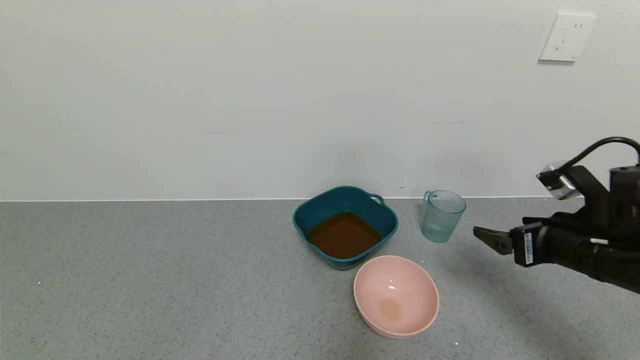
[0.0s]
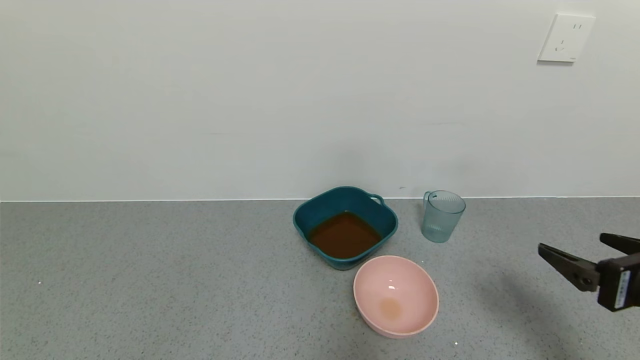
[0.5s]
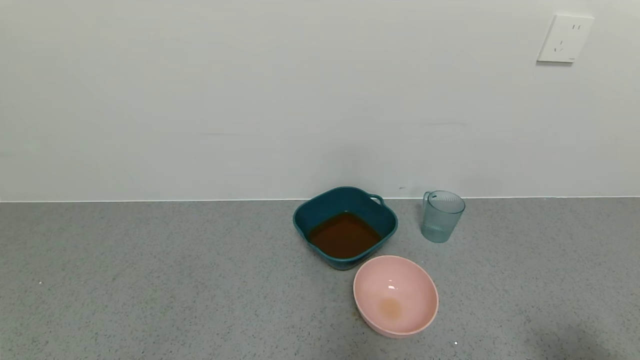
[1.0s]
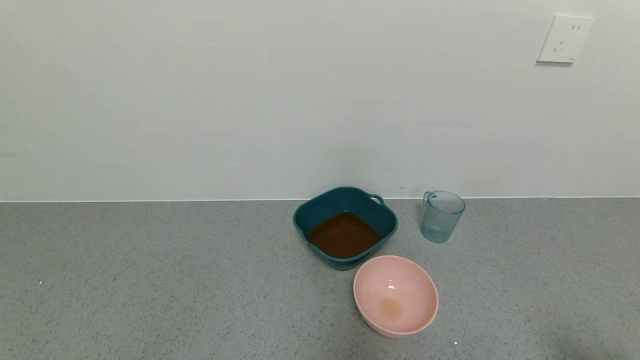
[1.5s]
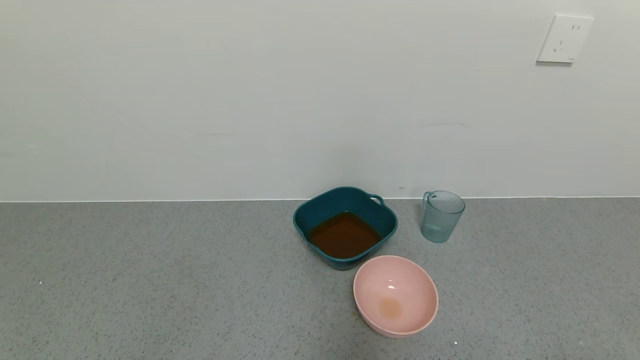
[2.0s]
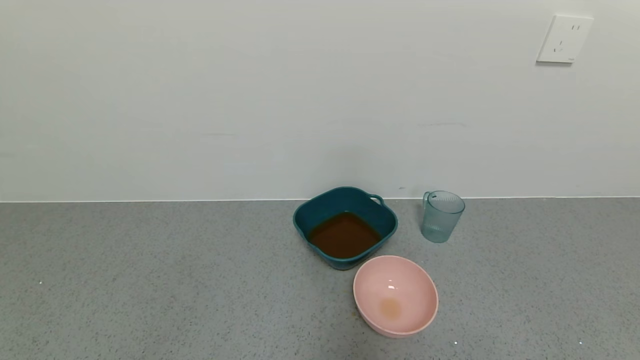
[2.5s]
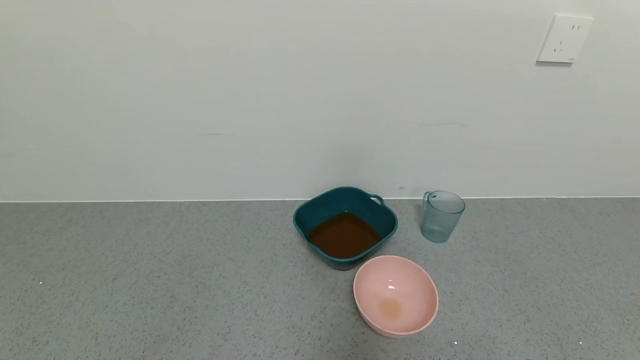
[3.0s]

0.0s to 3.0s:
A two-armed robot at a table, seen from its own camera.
Task of the whole recording: use a gripper to pick up the cup and pour the liquid into a bowl or tray.
0.0s to 1.5s: The right gripper shifts some 25 cm backward.
